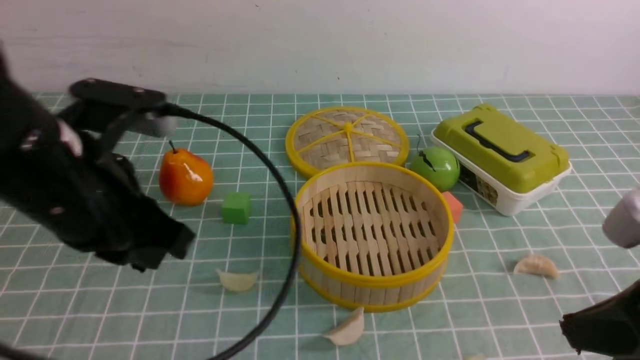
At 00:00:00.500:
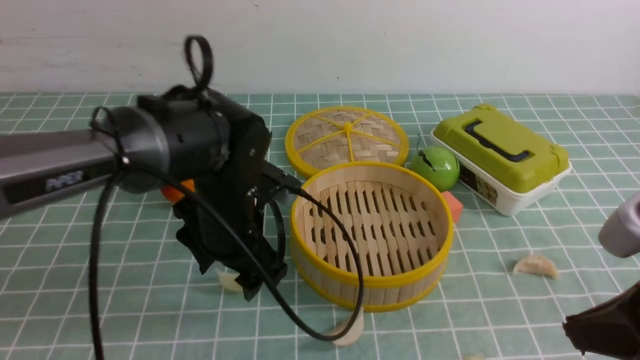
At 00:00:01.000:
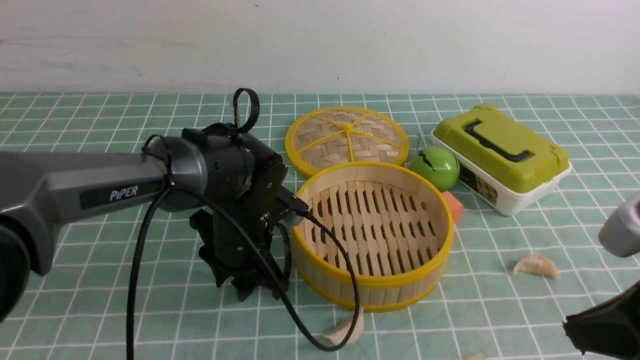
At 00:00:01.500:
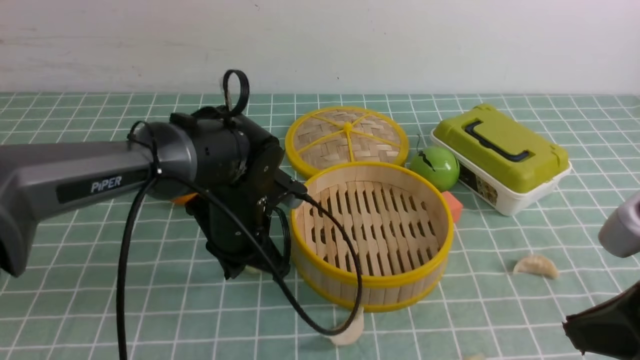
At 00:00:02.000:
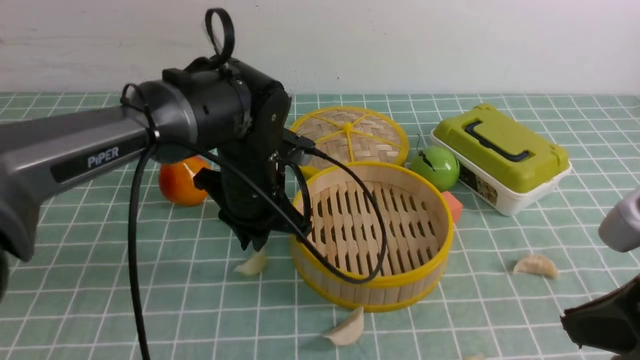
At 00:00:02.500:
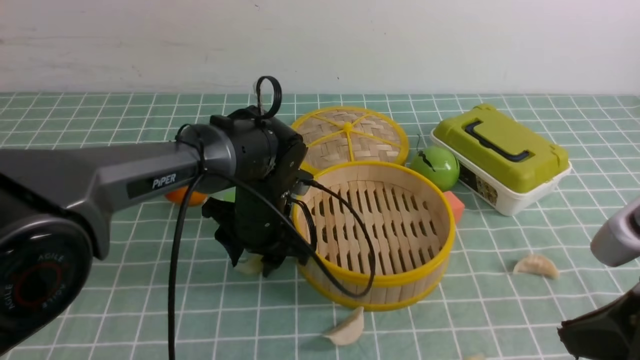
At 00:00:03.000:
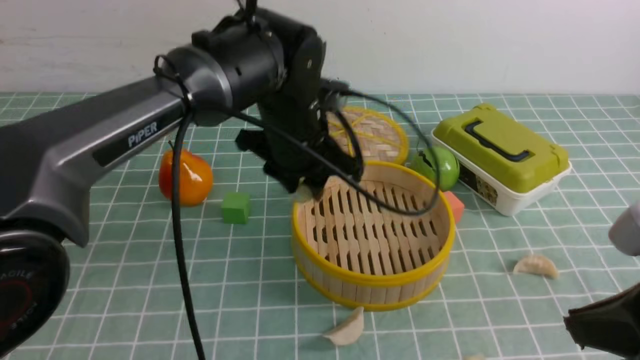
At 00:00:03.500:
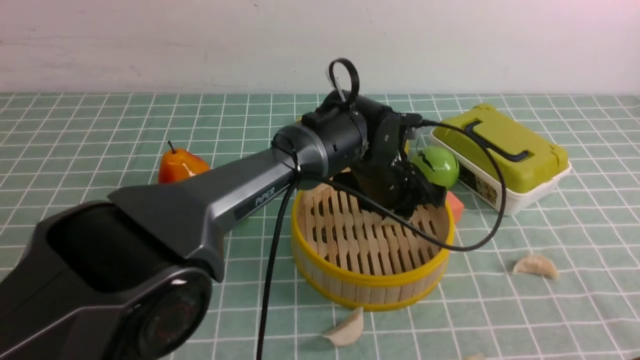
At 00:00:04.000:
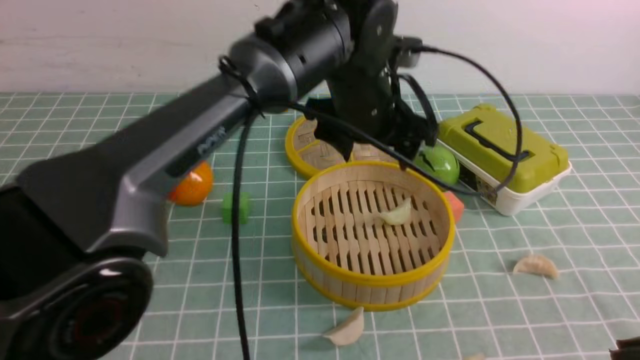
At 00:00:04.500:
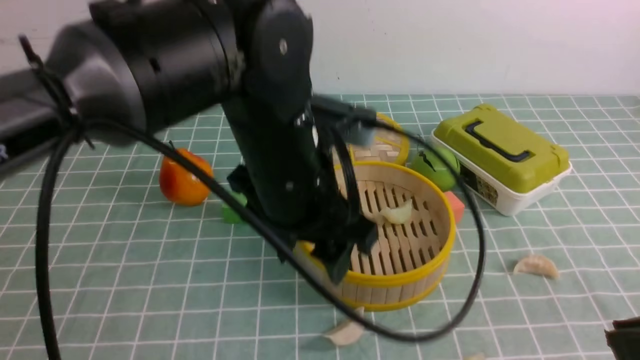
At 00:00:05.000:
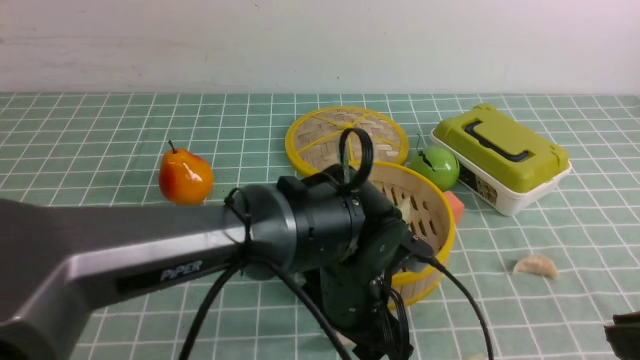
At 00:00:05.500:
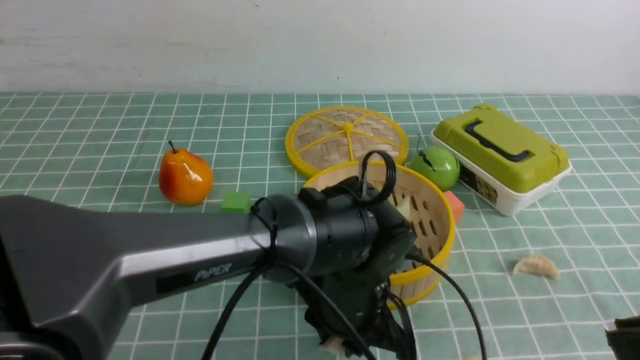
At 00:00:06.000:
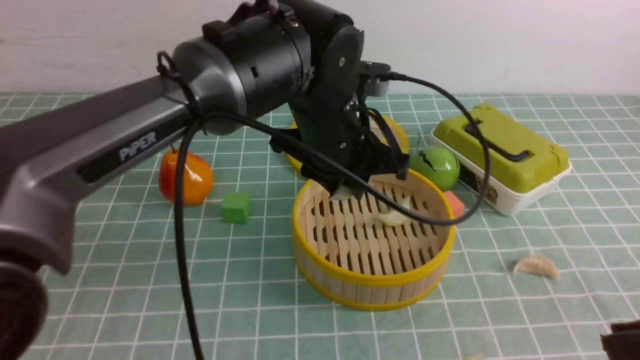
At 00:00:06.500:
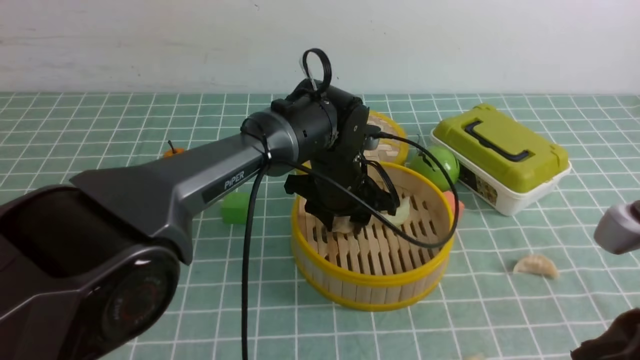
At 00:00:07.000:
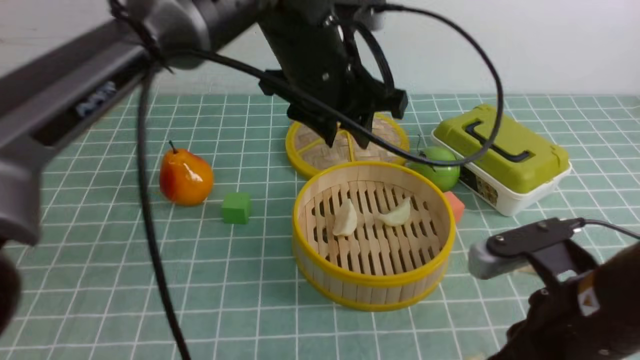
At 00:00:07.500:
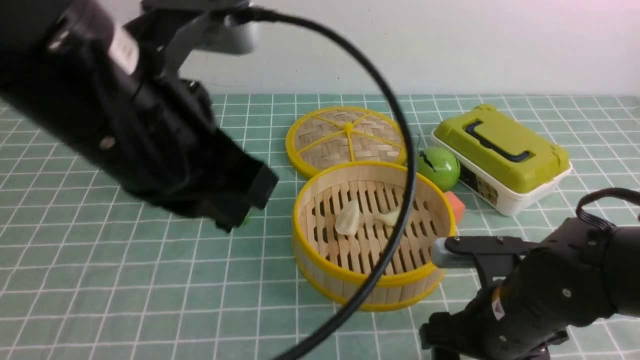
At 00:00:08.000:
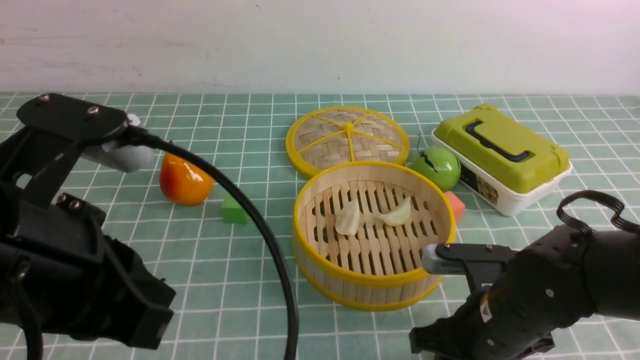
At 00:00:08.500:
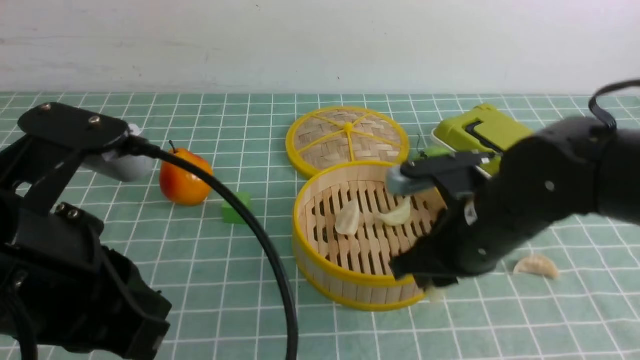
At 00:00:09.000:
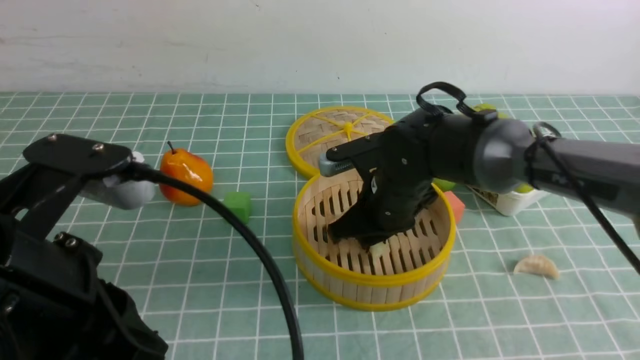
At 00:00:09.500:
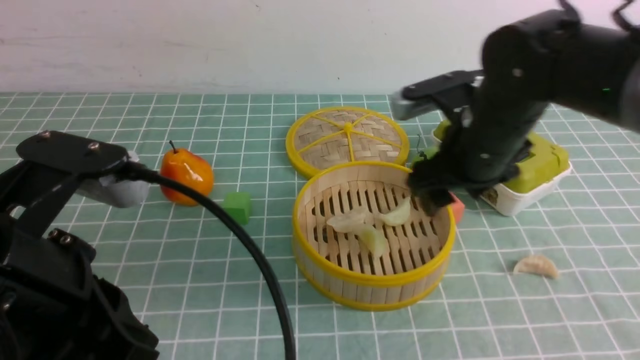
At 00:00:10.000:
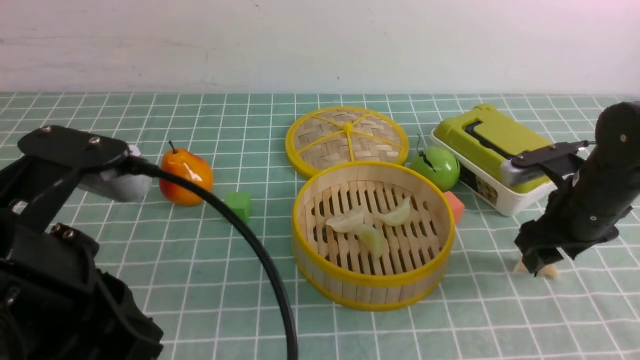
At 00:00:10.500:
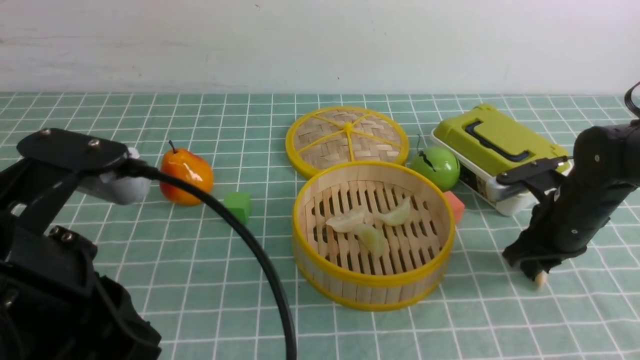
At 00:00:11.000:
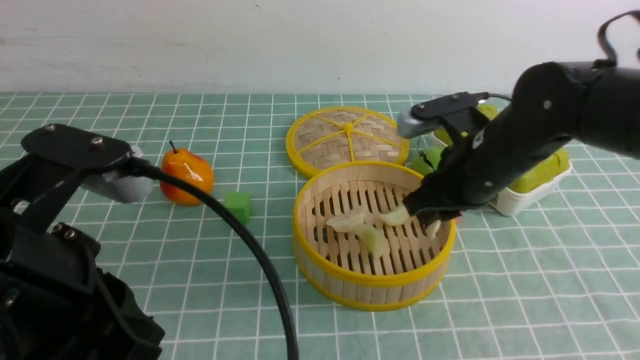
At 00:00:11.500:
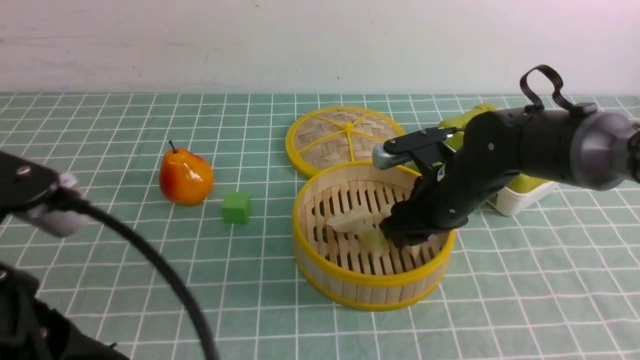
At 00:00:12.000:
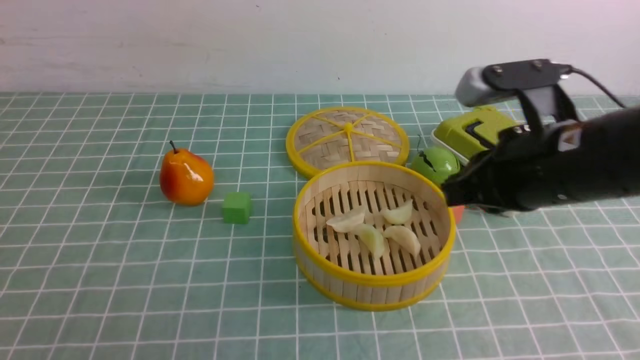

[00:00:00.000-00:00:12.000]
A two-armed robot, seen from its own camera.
Task of the whole recording: put the dumplings into the steamer on the table with the blue tablecloth.
Step, 00:00:00.000 to 00:00:02.500: use the left arm to grab a dumpling.
Step, 00:00:03.000 to 00:00:04.000: use the left arm to put the dumpling into the steamer.
Step, 00:00:04.500 to 00:00:05.500: use the left arm to grab a dumpling.
Step, 00:00:06.000 to 00:00:07.000: use the left arm to put the dumpling into the steamer.
Step, 00:00:07.500 to 00:00:08.500: use the right arm to grab a dumpling.
Step, 00:00:09.000 to 00:00:09.500: use the right arm to put the dumpling into the steamer.
Step, 00:00:10.000 to 00:00:10.500: use the right arm to grab a dumpling.
Step, 00:00:11.000 to 00:00:11.500: use the right arm to put the dumpling into the steamer.
00:00:00.000 to 00:00:02.000: The left gripper heads forward, to the right and downward, covering roughly 20 cm, and opens, then closes again.
00:00:02.000 to 00:00:04.000: The left gripper is displaced to the right and upward by some 15 cm, and opens up. Meanwhile the right gripper changes place by roughly 5 cm.
00:00:04.000 to 00:00:06.000: The left gripper goes up and down, roughly 15 cm each way, reversing 2 times, and closes.
00:00:06.000 to 00:00:08.000: The left gripper is displaced backward, to the left and upward by roughly 25 cm, and closes its fingers; the right gripper goes approximately 25 cm downward, forward and to the left, and opens.
00:00:08.000 to 00:00:10.000: The right gripper shifts roughly 15 cm forward, to the right and upward.
00:00:10.000 to 00:00:12.000: The right gripper travels to the left, upward and backward by roughly 15 cm, and closes its fingers. Meanwhile the left gripper shifts approximately 10 cm backward and to the left.

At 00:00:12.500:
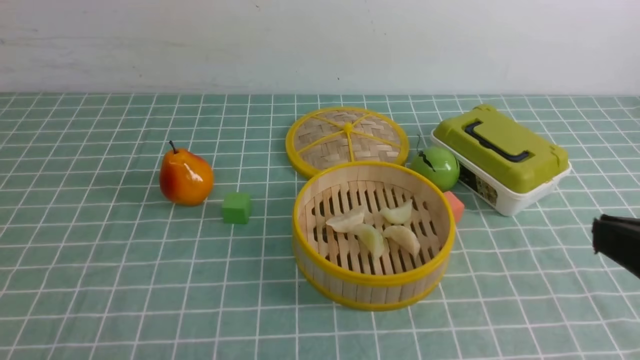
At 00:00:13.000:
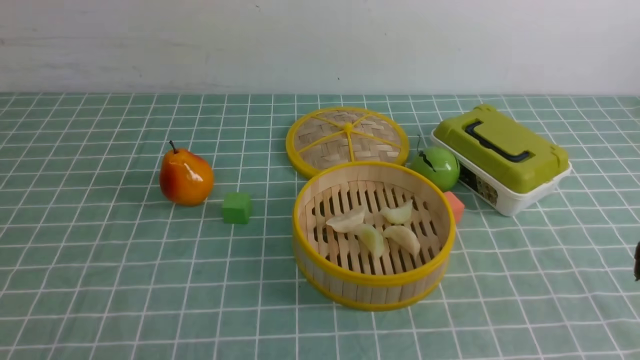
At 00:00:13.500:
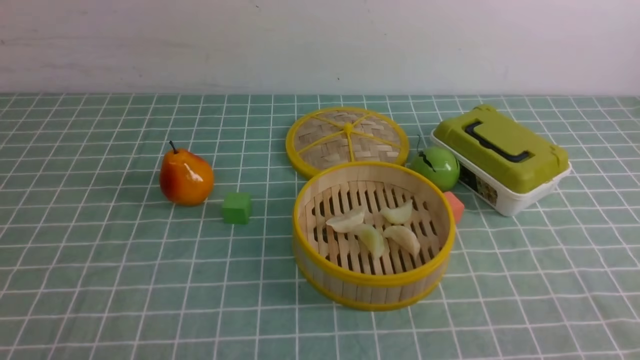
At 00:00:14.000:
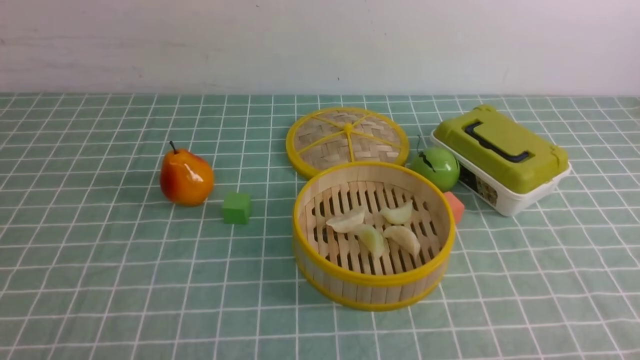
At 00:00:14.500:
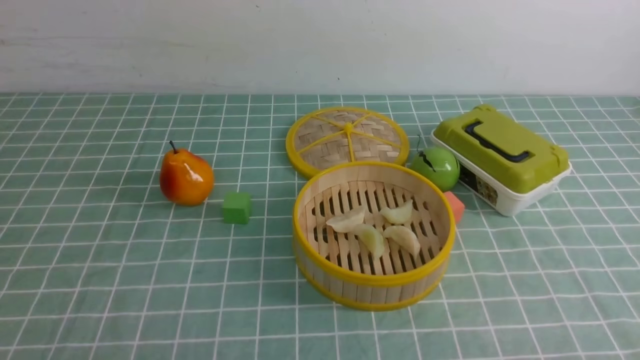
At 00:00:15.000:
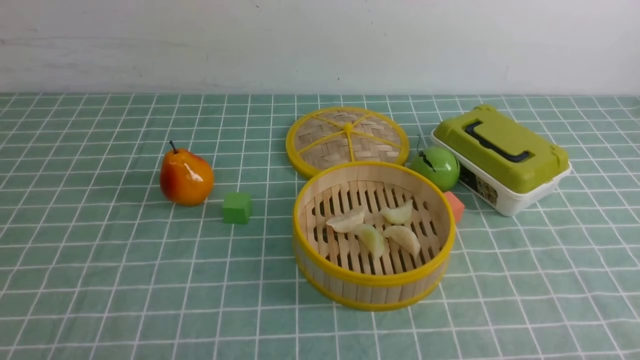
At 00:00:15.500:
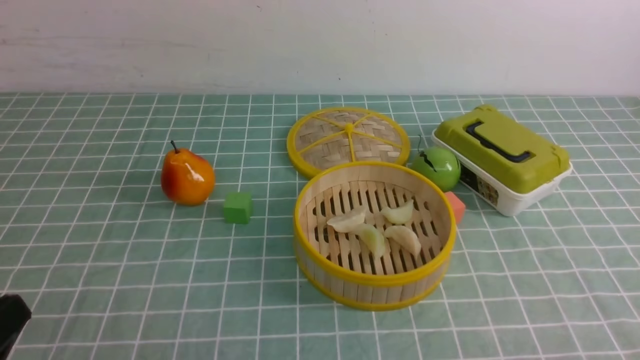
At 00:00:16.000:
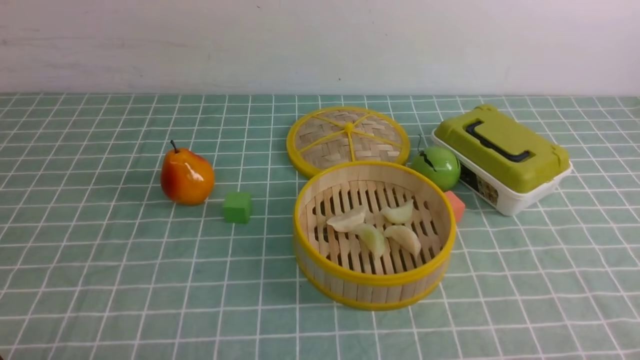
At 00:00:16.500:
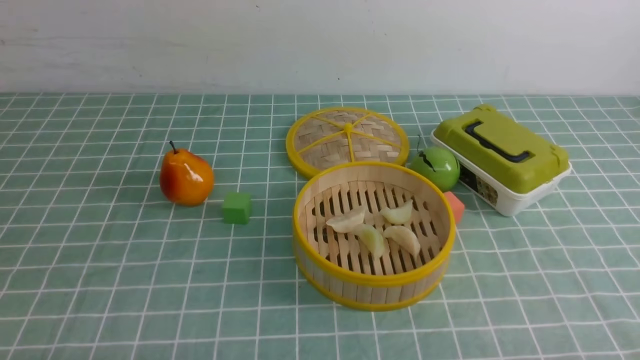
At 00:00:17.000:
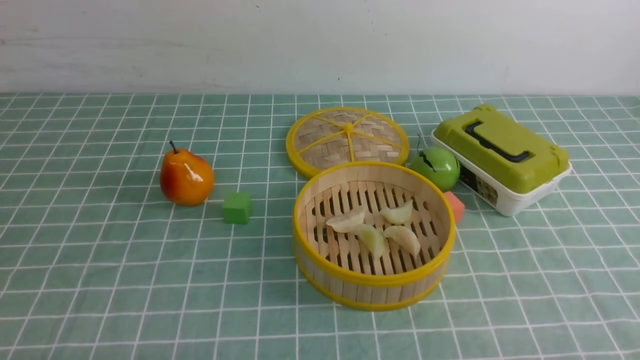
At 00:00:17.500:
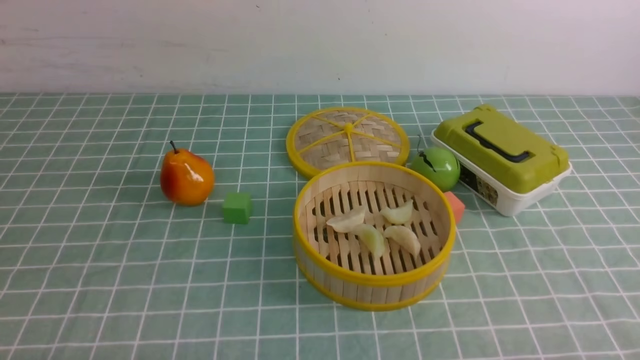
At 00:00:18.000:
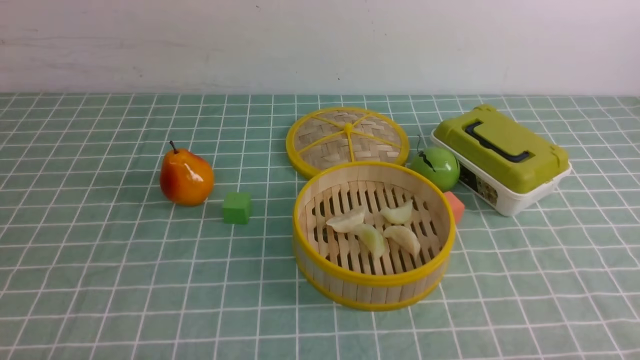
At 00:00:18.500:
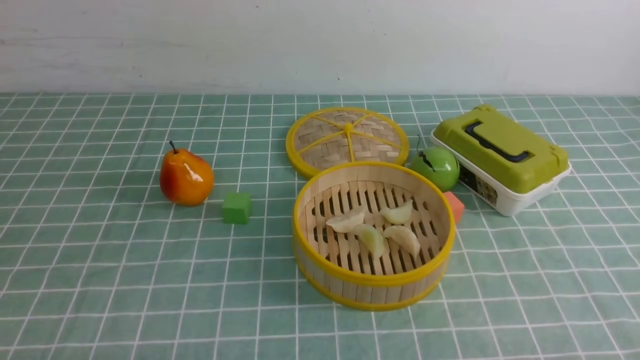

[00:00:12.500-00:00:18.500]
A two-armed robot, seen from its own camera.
Task of the whole recording: put the dumplings into the steamer on the table with the blue tablecloth.
00:00:12.500 to 00:00:14.500: The right gripper travels downward, backward and to the right by about 20 cm.
